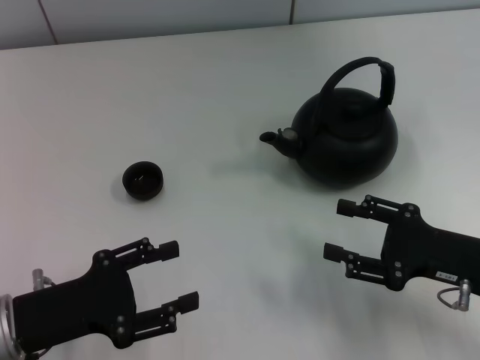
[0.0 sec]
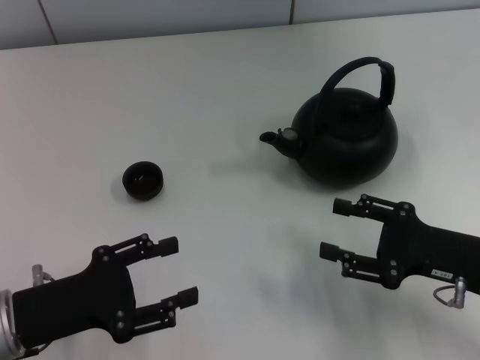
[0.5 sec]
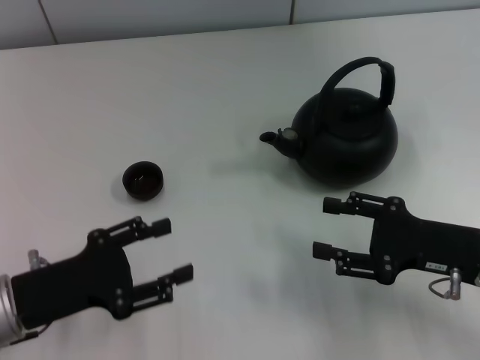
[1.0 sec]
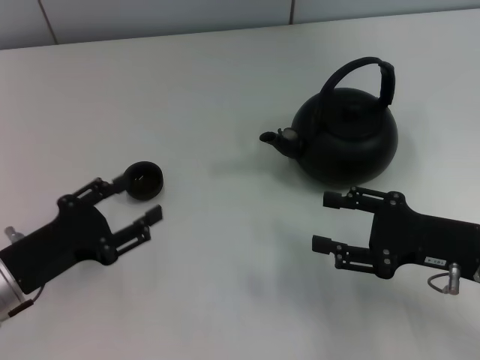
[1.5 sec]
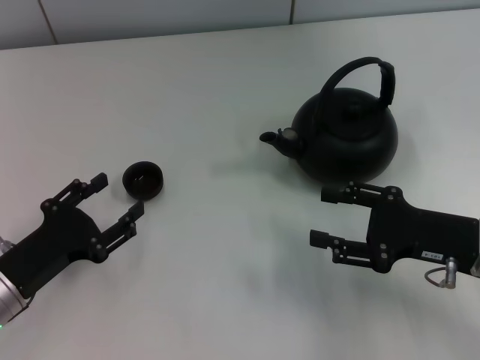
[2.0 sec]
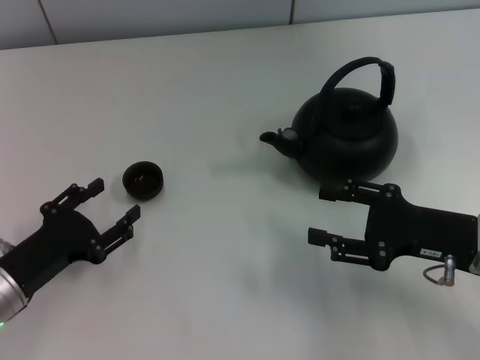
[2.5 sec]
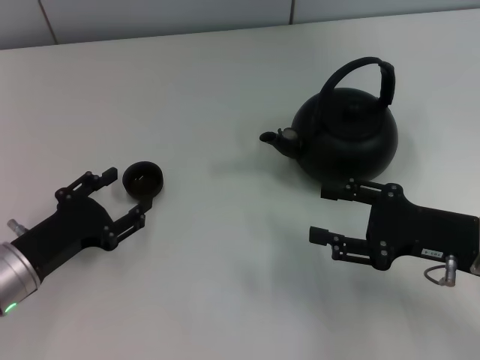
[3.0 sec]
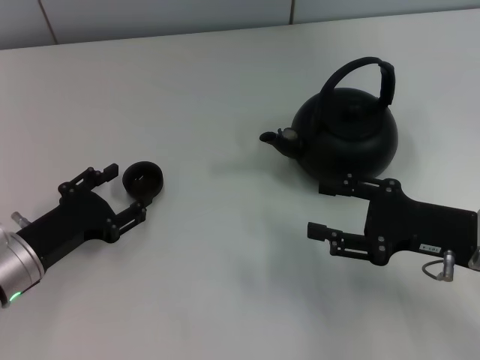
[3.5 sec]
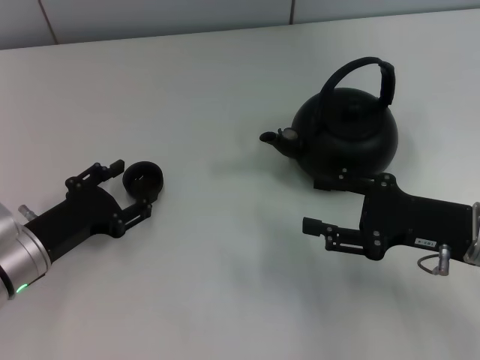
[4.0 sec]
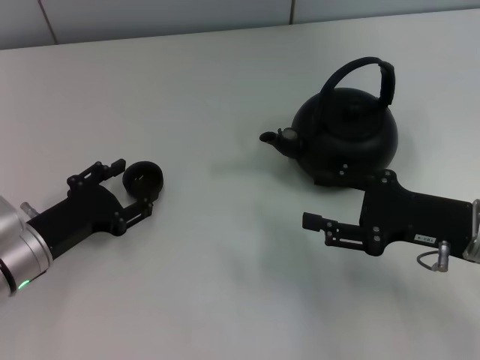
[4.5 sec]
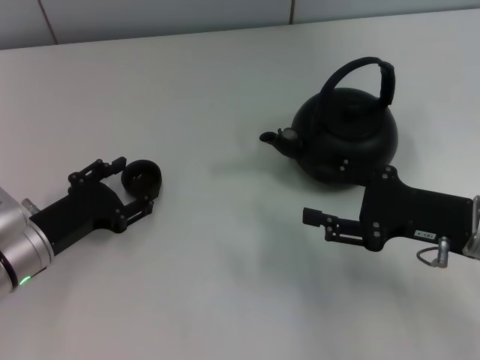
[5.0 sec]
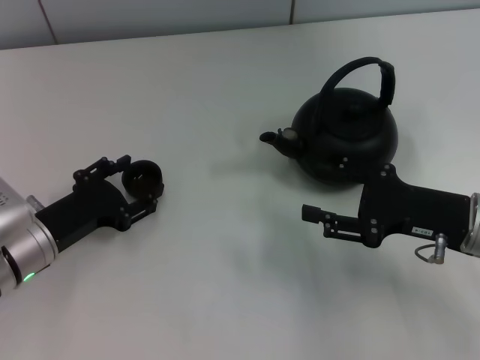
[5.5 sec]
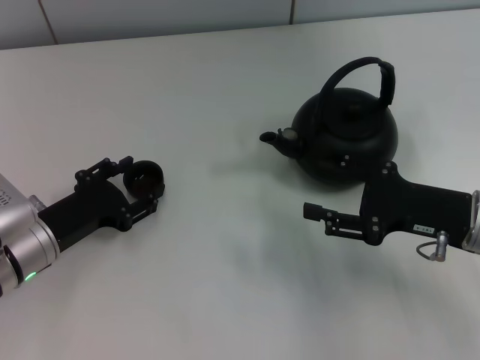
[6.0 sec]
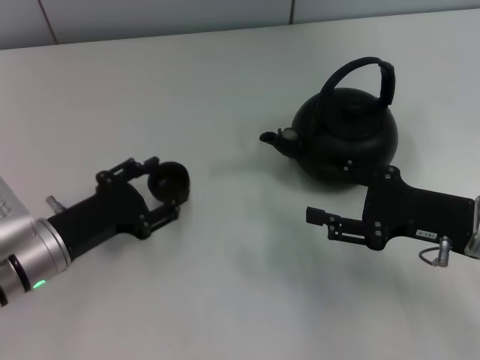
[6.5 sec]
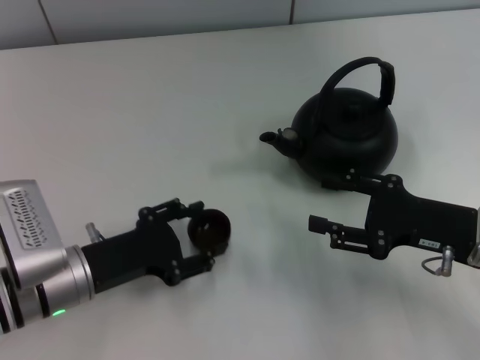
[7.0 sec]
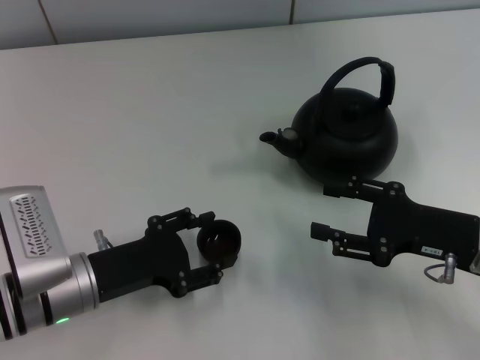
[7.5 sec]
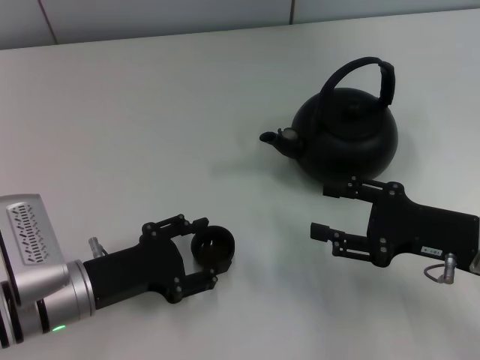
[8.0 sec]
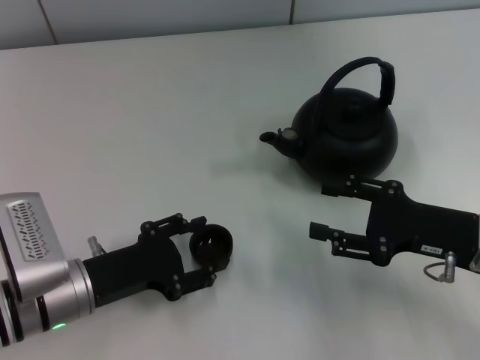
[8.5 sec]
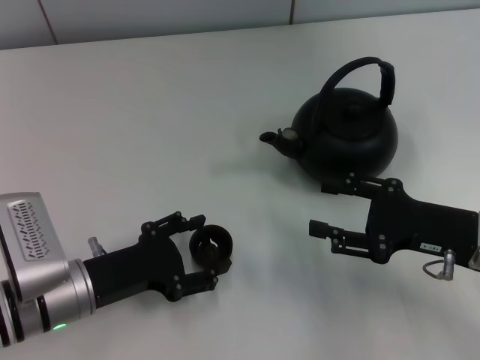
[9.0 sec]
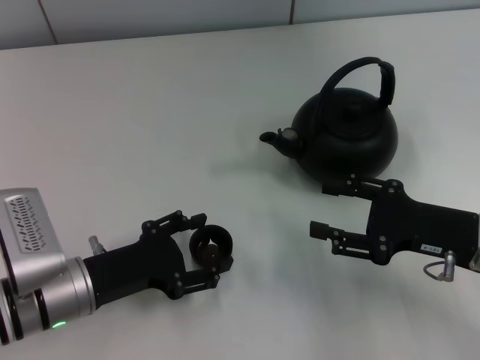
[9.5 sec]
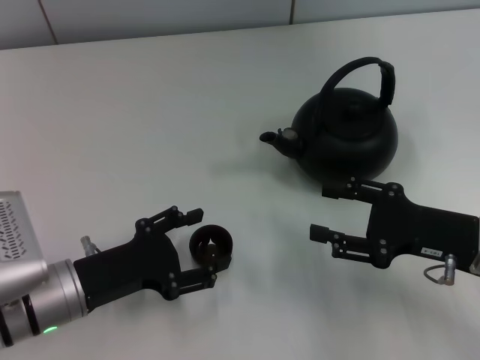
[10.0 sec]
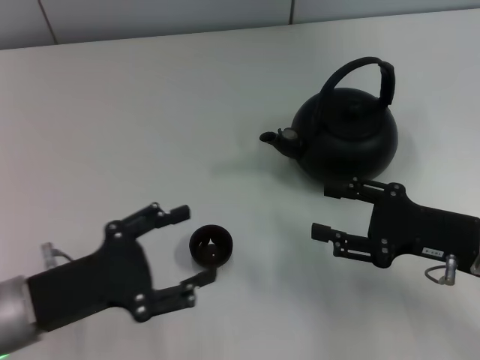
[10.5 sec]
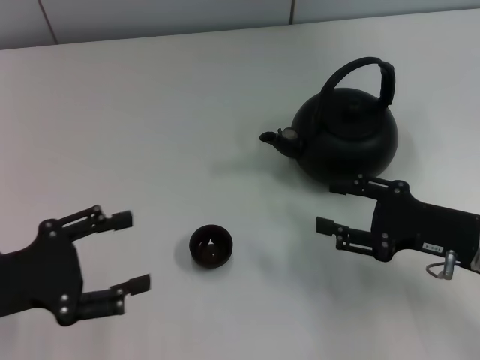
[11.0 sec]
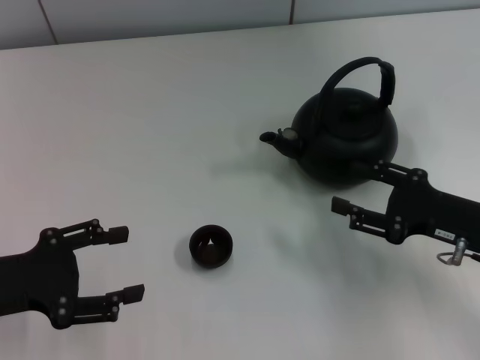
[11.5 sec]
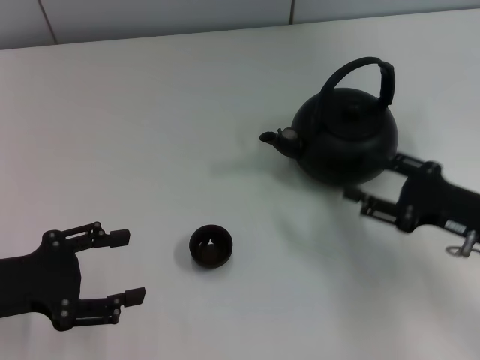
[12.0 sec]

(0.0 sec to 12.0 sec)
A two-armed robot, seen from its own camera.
Task of the whole recording: Grasp the handle of the teapot with one hand and pour tea into the teacup.
Step, 0.0 sec - 6.5 sec: Pick up the teacup with the left gripper.
Step, 7.0 sec - 9.5 sec: Place the teacup in the center of view with the left gripper.
2.0 sec - 4.0 sec: There are only small adjustments of the grippers.
4.0 sec - 6.0 sec: The left gripper closes its fingers.
6.0 sec - 8.0 sec: The left gripper shifts by roughly 5 cm.
8.0 sec - 10.0 sec: The left gripper opens up.
10.0 sec - 12.0 sec: The left gripper heads to the left and upward, covering some 10 cm.

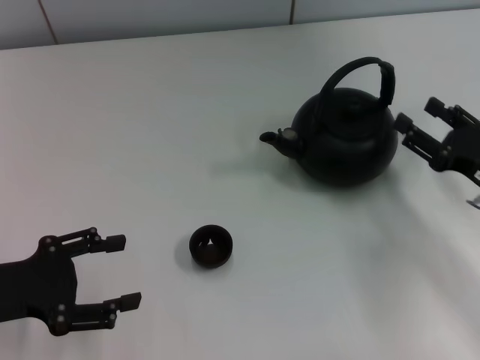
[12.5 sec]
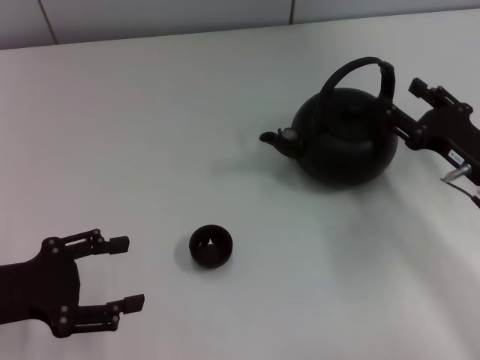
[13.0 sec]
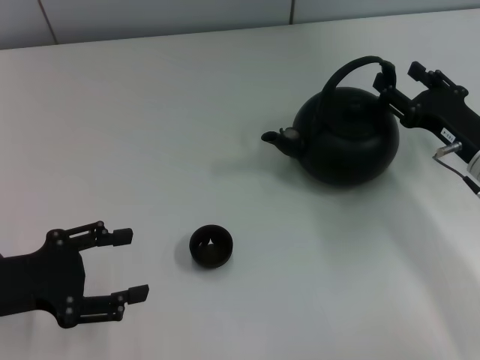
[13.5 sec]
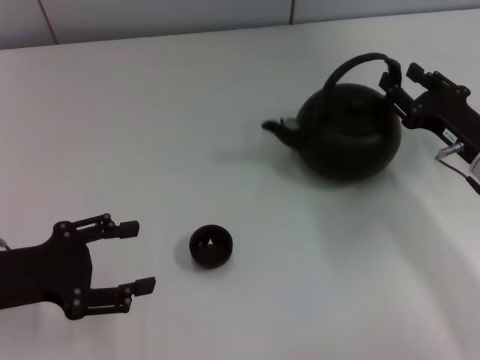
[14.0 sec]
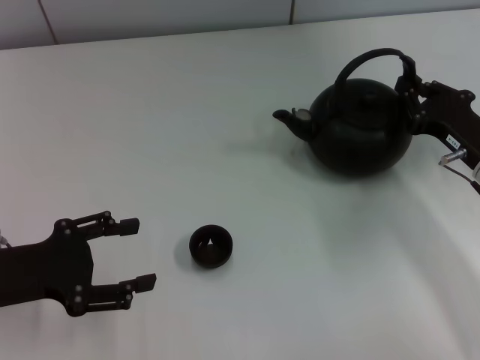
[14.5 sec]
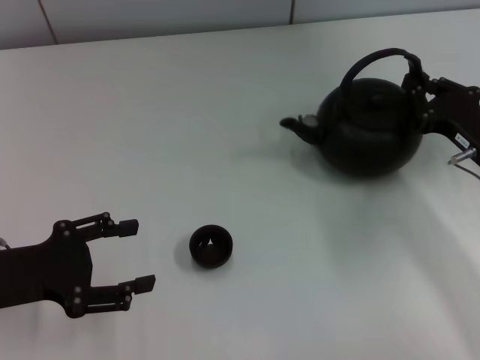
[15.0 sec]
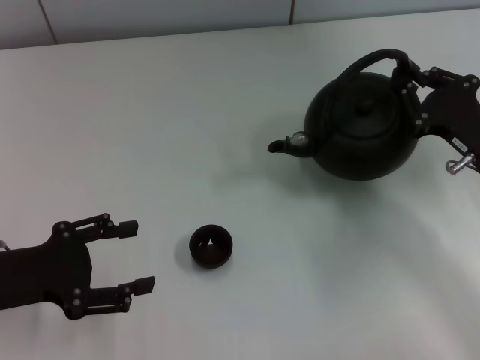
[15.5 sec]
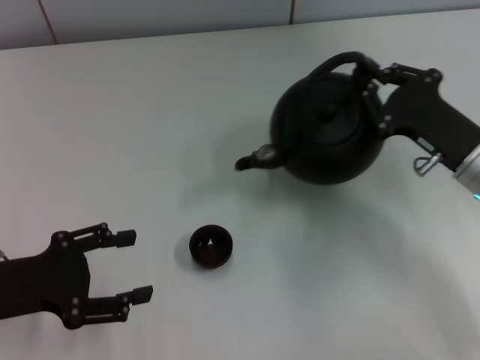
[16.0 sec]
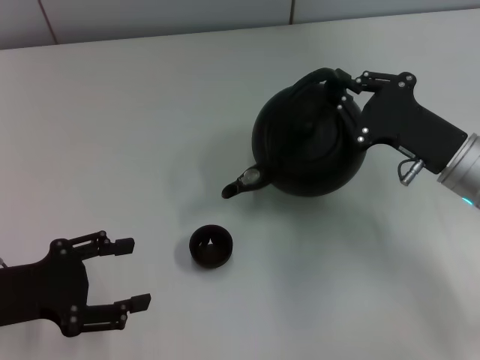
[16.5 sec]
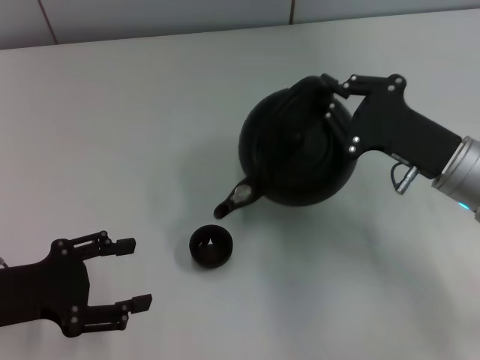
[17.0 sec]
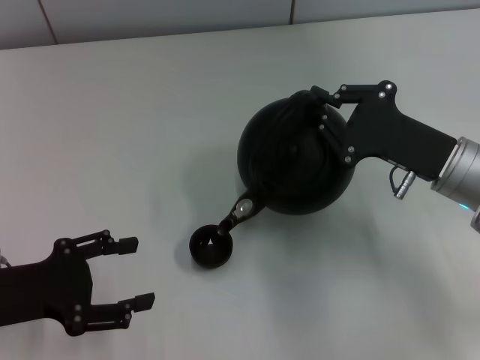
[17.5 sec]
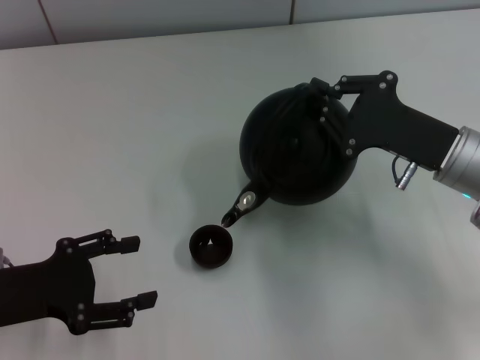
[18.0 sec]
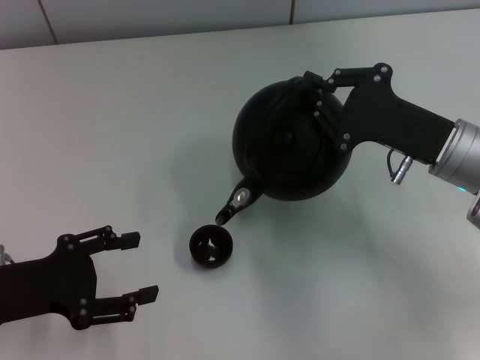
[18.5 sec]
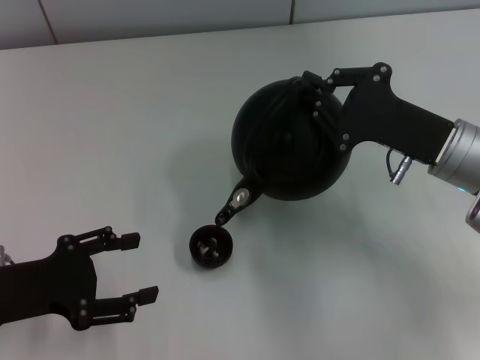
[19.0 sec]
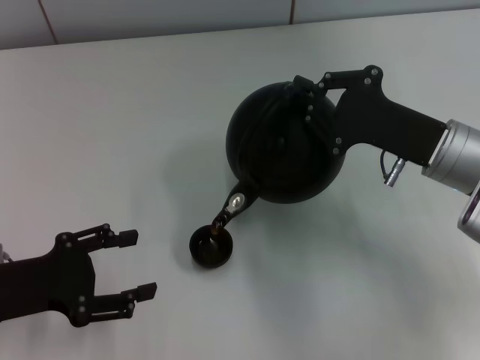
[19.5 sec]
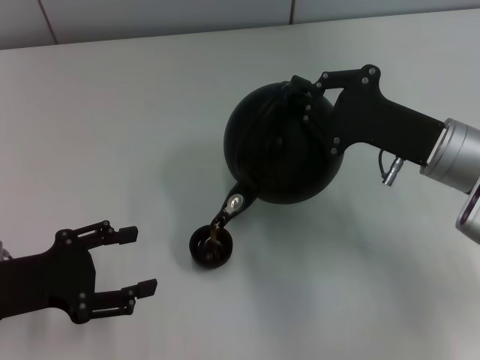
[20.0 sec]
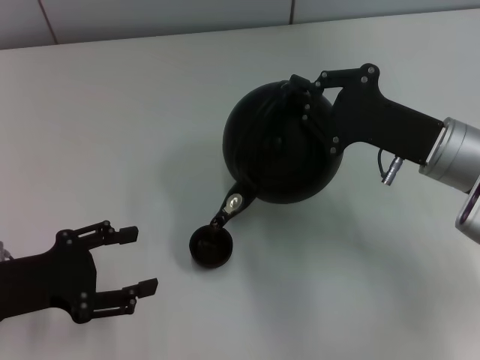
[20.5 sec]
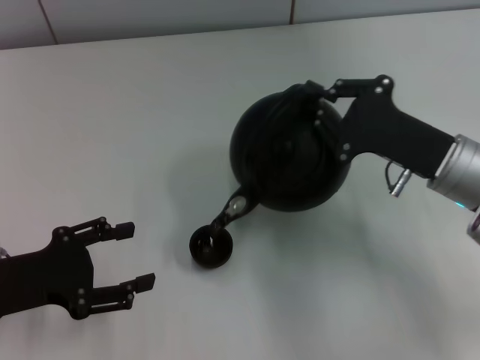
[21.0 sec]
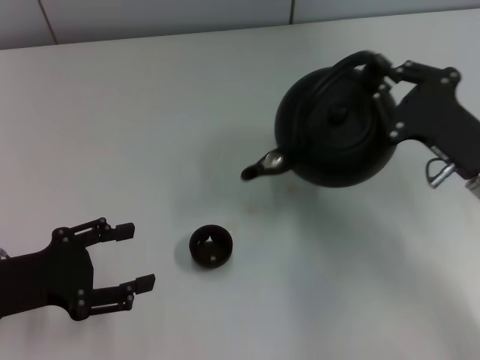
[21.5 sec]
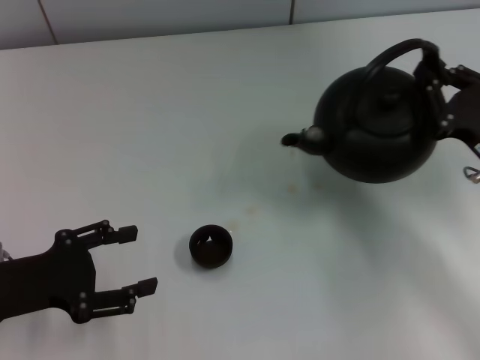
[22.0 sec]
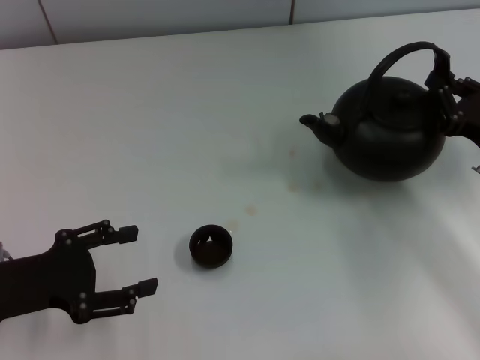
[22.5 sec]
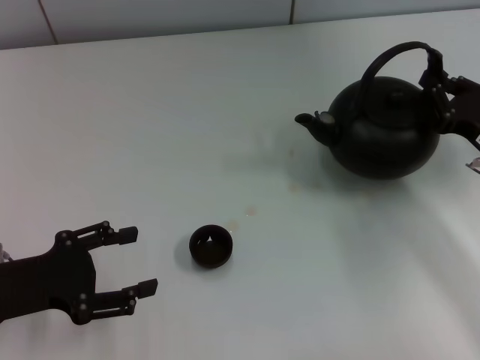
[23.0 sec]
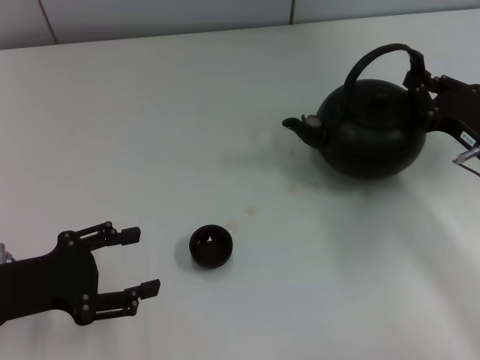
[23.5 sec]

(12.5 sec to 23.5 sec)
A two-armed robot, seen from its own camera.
Task of the whole recording: Grasp the handle of the teapot with one hand and pour tea into the teacup.
Step, 12.5 sec - 15.5 sec: Pick up the teapot with the right gripper.
12.5 sec - 14.5 sec: The right gripper shifts by roughly 5 cm, and closes its fingers.
18.0 sec - 20.0 sec: The grippers make only small movements.
20.0 sec - 21.5 sec: The right gripper ends up approximately 5 cm from where it was.
21.5 sec - 23.5 sec: The right gripper changes place by some 5 cm.

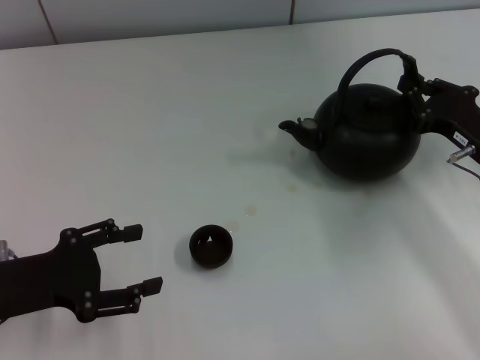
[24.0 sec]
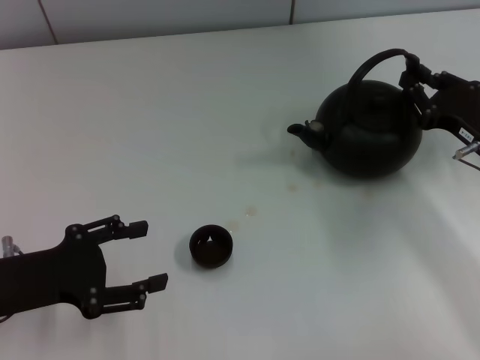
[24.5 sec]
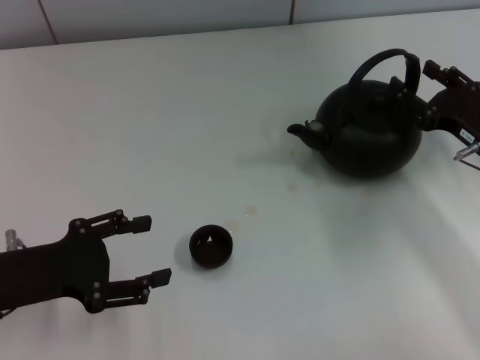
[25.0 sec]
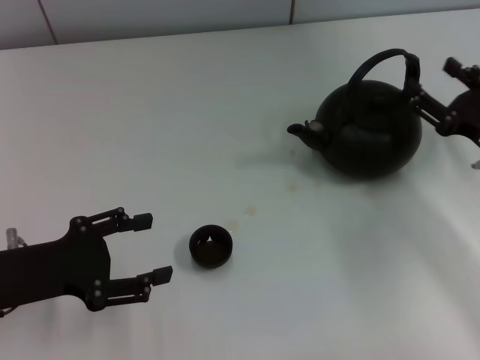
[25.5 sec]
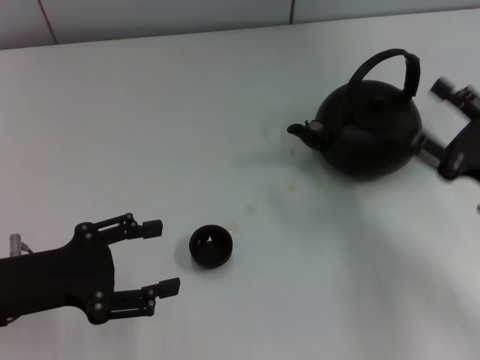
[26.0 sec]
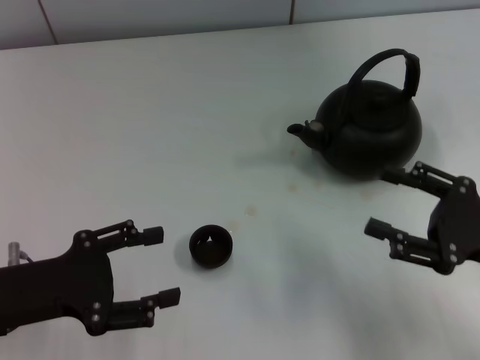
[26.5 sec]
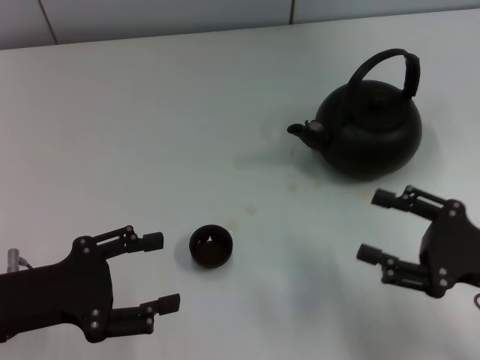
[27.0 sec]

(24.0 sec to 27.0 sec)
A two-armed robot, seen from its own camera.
Task of the whole recording: Grasp the handle of the teapot with one hand and pour tea into the teacup.
24.0 sec - 25.5 sec: The right gripper opens.
25.5 sec - 27.0 sec: The right gripper is displaced backward by approximately 10 cm.
